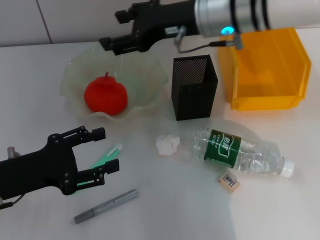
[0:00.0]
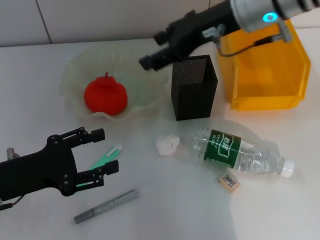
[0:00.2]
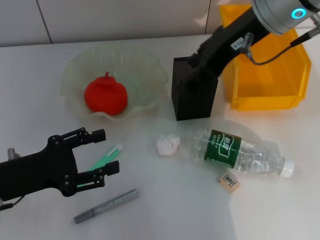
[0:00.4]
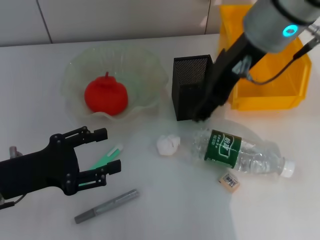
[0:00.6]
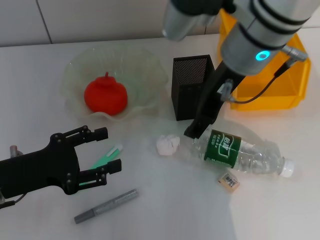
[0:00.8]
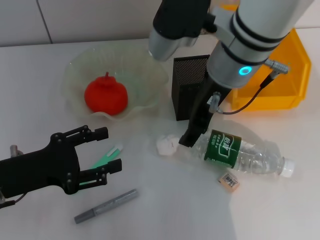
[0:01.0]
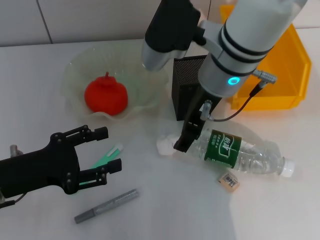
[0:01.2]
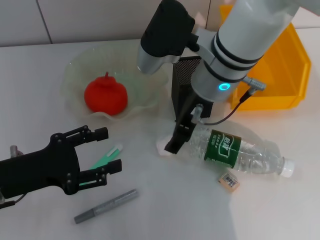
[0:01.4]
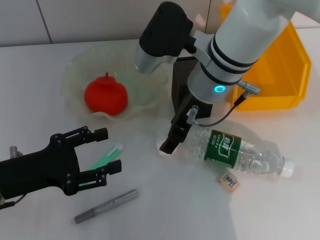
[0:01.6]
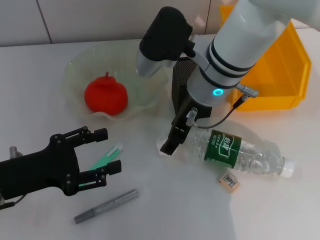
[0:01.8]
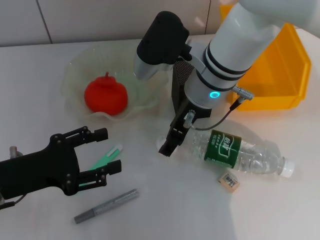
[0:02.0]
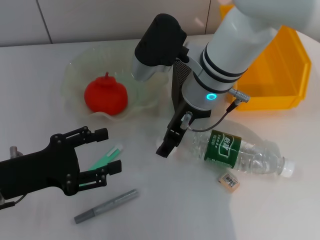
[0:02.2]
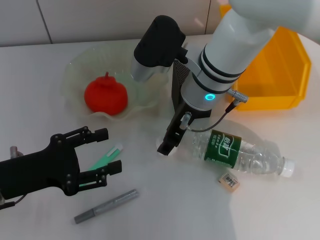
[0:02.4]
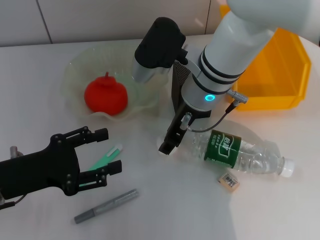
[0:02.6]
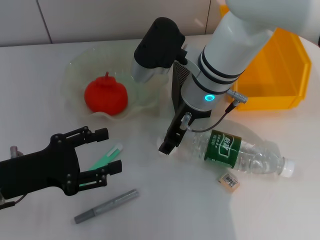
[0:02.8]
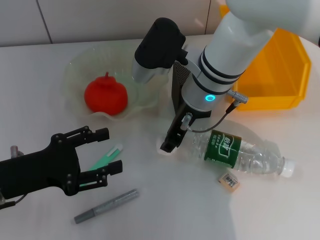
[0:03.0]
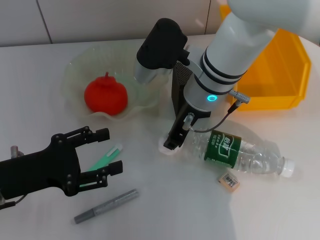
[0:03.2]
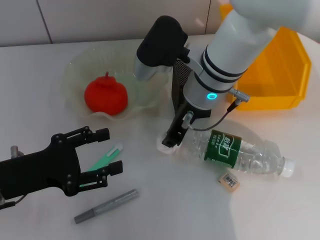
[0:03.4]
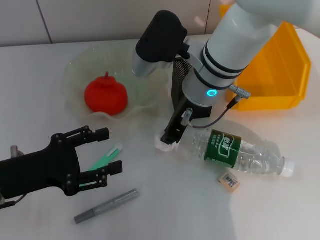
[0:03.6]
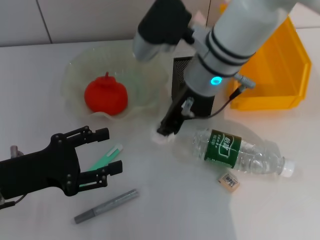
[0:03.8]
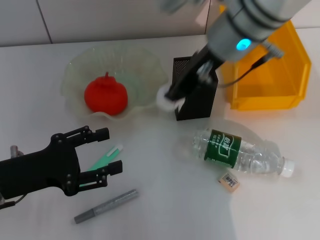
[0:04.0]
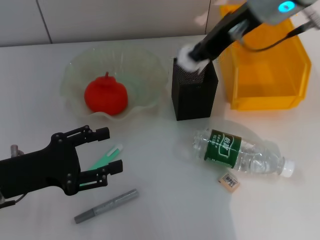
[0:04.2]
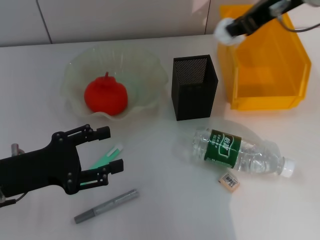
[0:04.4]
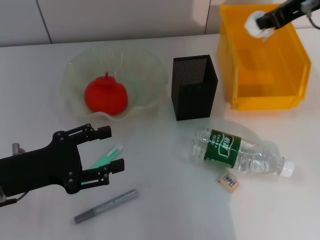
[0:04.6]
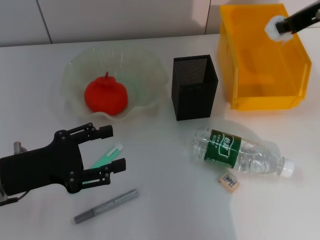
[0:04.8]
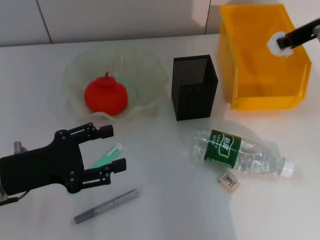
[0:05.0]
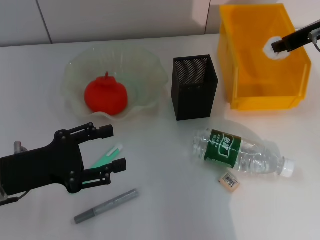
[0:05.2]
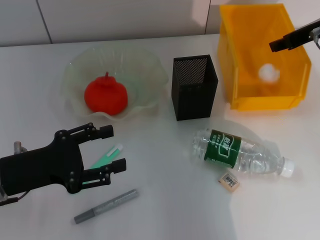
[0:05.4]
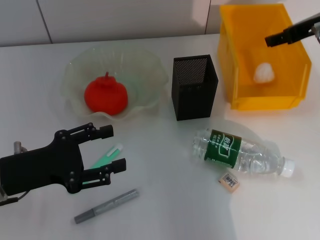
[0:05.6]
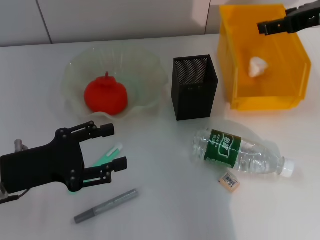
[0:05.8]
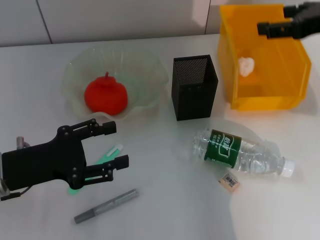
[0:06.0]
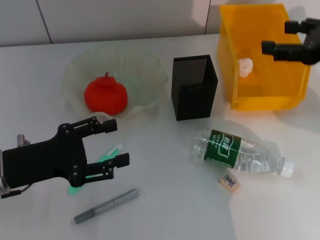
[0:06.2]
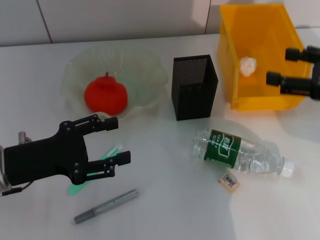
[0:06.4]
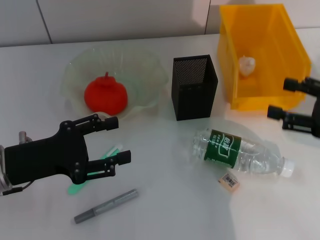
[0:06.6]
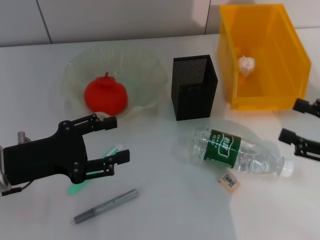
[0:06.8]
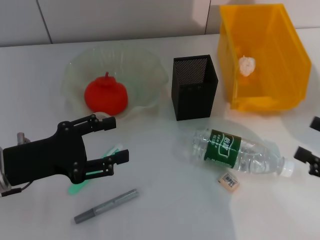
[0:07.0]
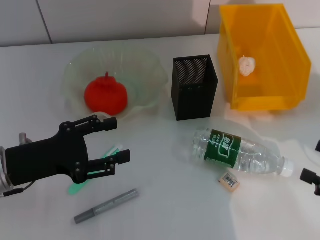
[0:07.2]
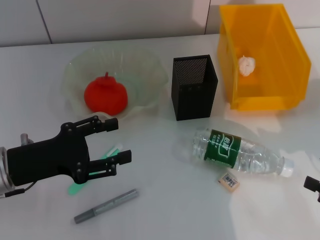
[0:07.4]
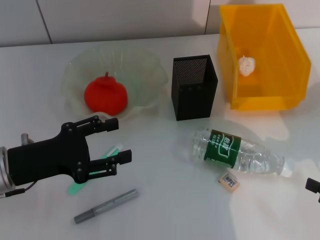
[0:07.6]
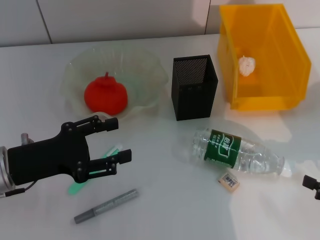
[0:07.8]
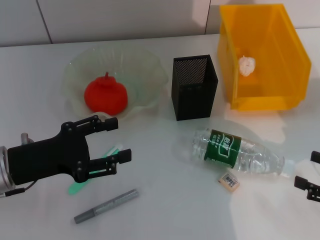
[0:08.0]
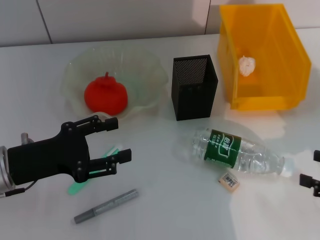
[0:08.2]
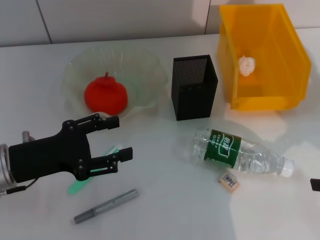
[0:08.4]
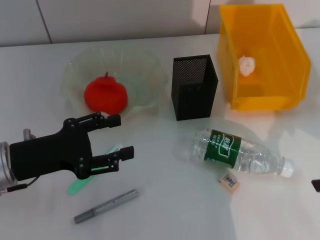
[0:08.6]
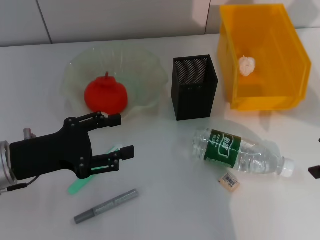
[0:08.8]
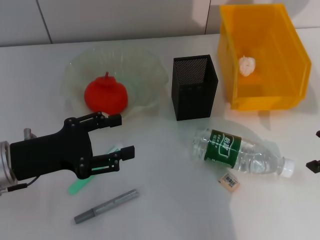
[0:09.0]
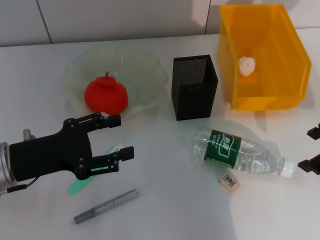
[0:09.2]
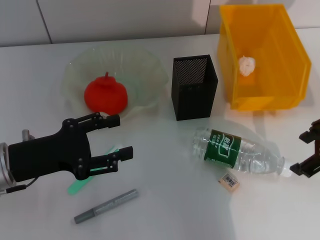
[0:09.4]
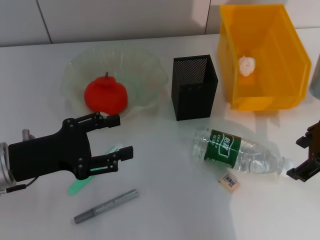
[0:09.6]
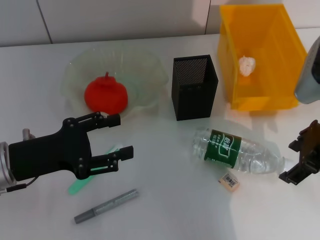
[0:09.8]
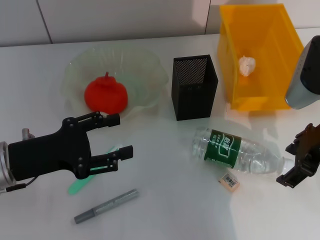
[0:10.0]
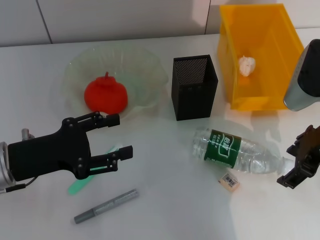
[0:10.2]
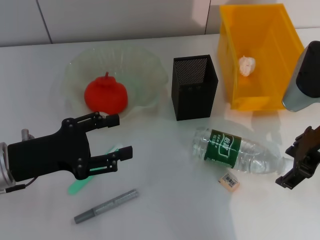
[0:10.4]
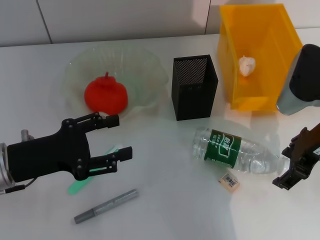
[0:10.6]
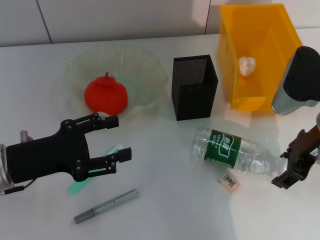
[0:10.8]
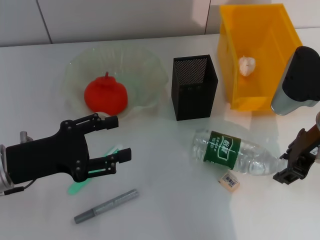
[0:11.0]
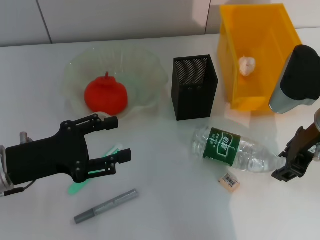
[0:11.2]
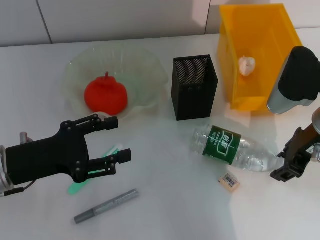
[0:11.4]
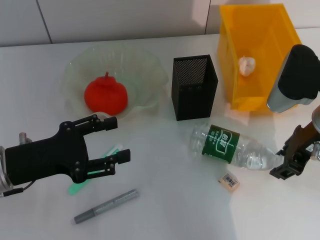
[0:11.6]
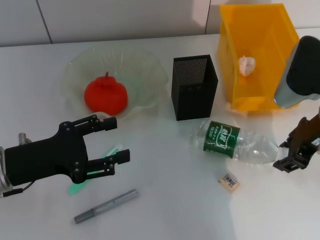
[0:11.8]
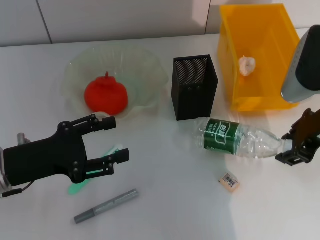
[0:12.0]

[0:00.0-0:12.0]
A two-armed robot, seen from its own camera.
Step, 0:00.0 to 0:03.2: Grab the paper ball with the right hand.
Step, 0:03.4 to 0:05.8: Place the paper ball into the trash can with the right hand.
Step, 0:06.2 to 0:11.0: Grab the water bottle with the right hand.
0:00.0 to 0:01.6: The right gripper ends up some 5 cm from where it was.
0:01.6 to 0:03.0: There are only small adjustments of the grippers.
0:03.0 to 0:04.4: The right gripper goes approximately 20 cm to the right and upward, and closes its fingers.
0:04.4 to 0:06.0: The right gripper is displaced to the right and backward by approximately 10 cm, and opens.
0:06.0 to 0:07.6: The right gripper moves backward, downward and to the right, about 30 cm.
0:07.6 to 0:09.0: The right gripper shifts approximately 20 cm upward, forward and to the left.
0:09.0 to 0:10.4: The right gripper shifts some 10 cm to the left and downward.
0:10.4 to 0:12.0: The right gripper closes.

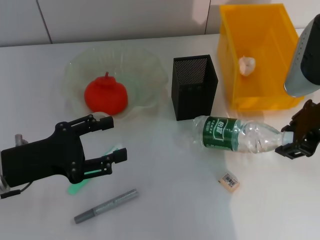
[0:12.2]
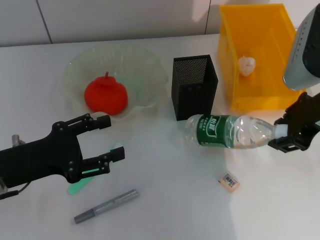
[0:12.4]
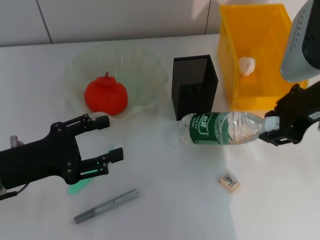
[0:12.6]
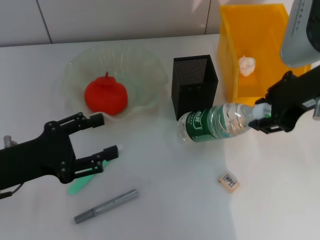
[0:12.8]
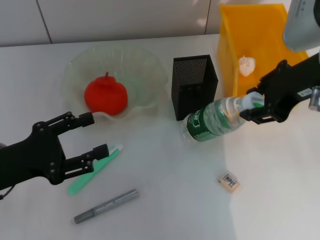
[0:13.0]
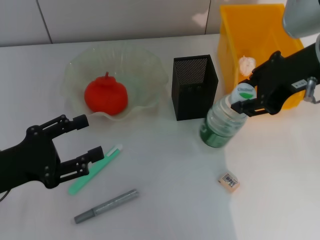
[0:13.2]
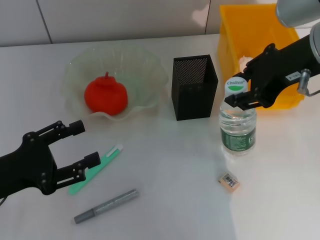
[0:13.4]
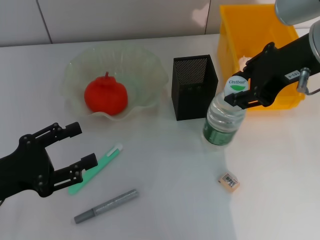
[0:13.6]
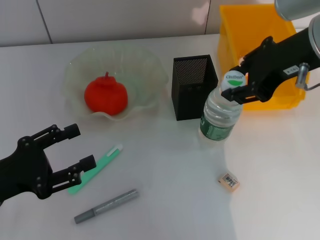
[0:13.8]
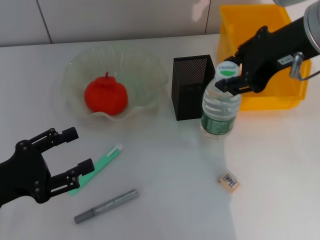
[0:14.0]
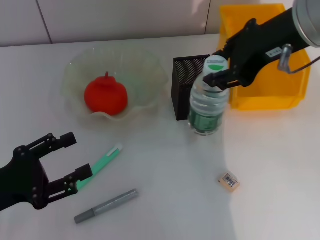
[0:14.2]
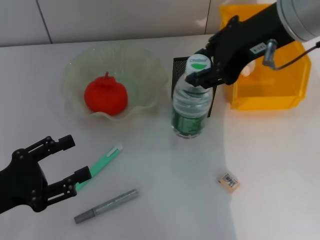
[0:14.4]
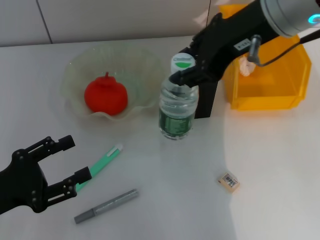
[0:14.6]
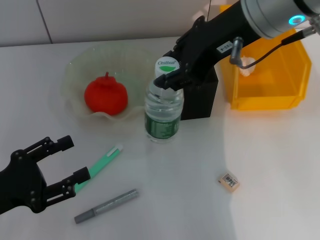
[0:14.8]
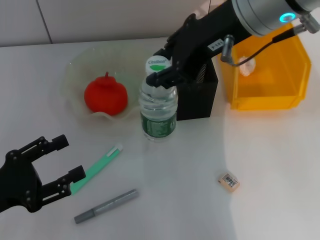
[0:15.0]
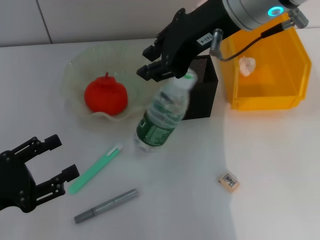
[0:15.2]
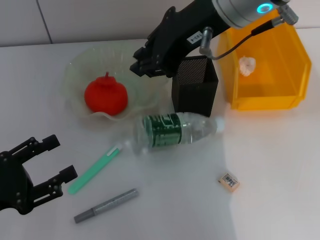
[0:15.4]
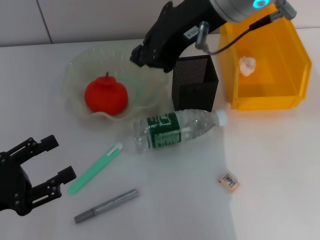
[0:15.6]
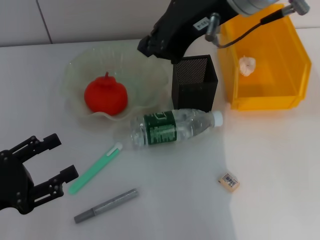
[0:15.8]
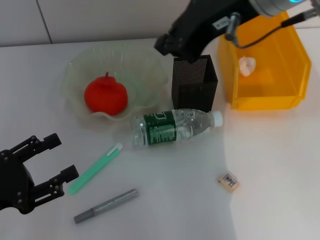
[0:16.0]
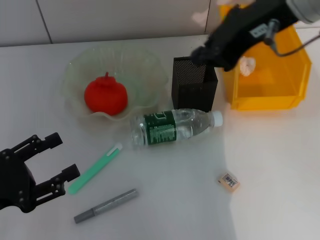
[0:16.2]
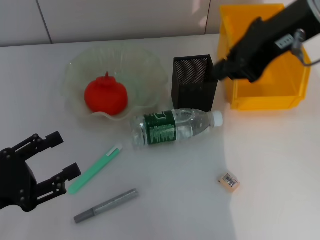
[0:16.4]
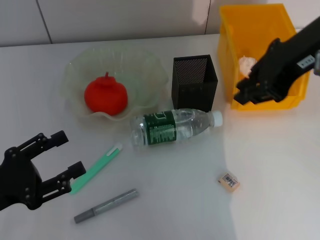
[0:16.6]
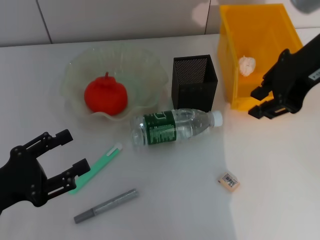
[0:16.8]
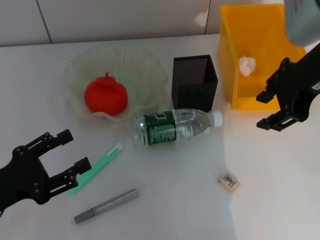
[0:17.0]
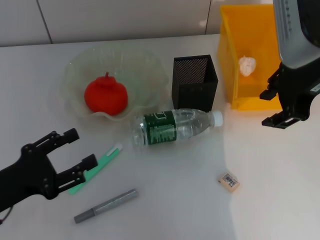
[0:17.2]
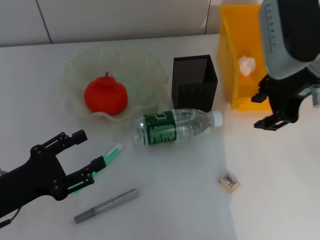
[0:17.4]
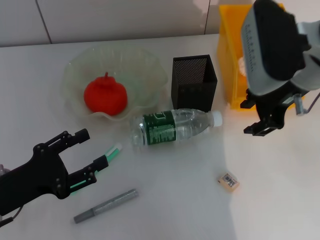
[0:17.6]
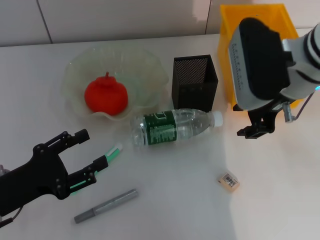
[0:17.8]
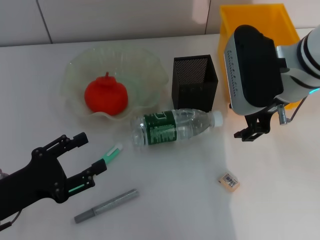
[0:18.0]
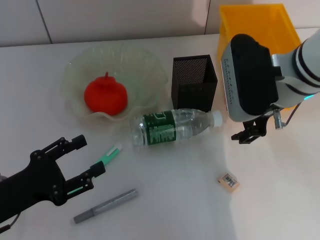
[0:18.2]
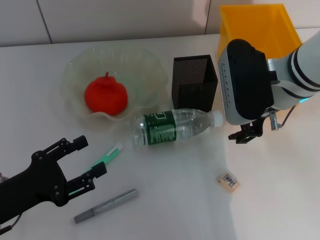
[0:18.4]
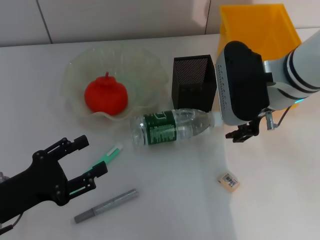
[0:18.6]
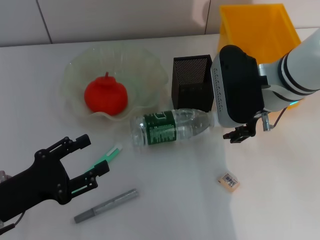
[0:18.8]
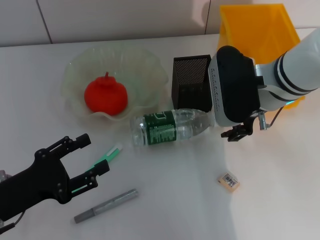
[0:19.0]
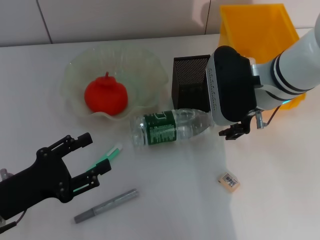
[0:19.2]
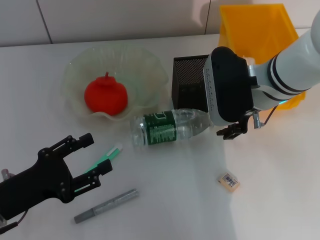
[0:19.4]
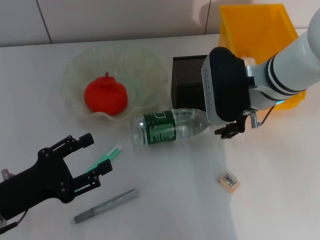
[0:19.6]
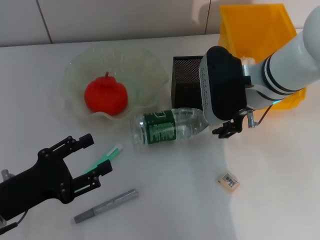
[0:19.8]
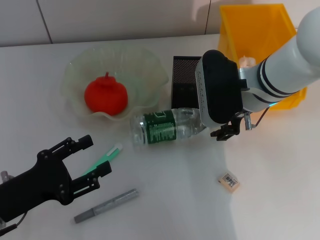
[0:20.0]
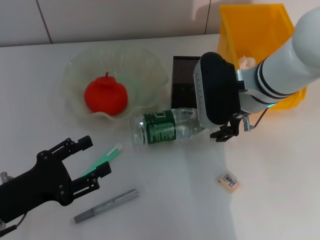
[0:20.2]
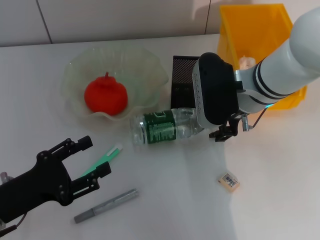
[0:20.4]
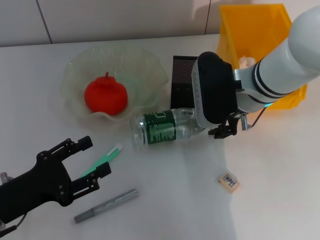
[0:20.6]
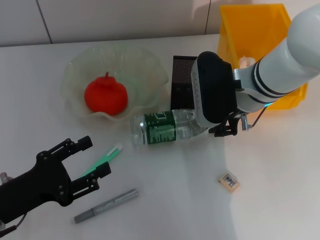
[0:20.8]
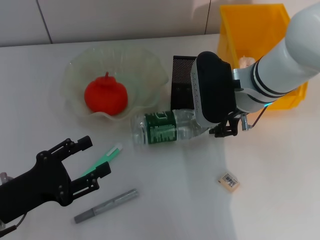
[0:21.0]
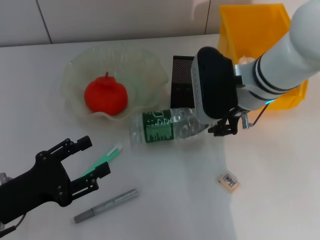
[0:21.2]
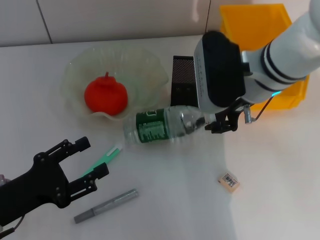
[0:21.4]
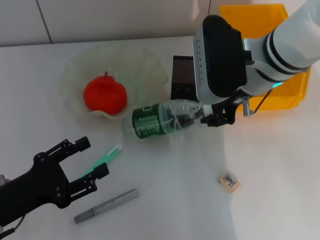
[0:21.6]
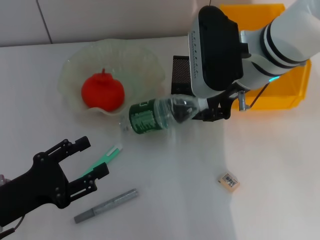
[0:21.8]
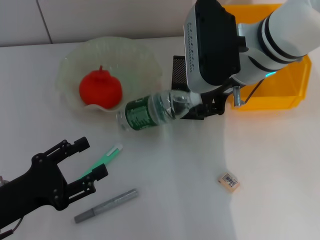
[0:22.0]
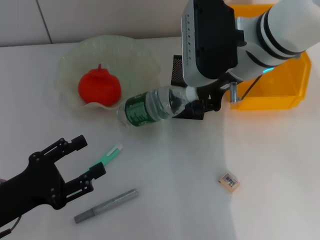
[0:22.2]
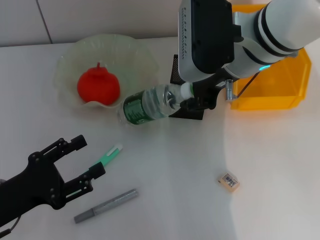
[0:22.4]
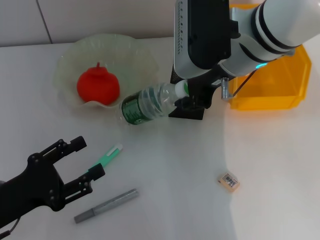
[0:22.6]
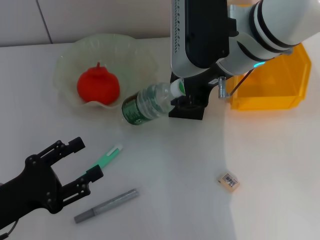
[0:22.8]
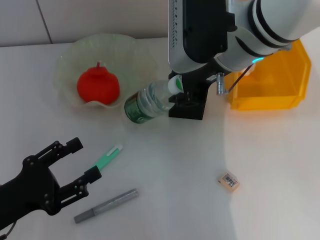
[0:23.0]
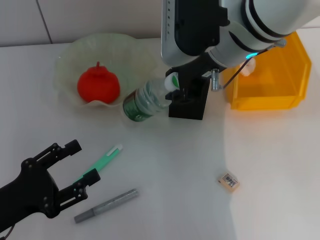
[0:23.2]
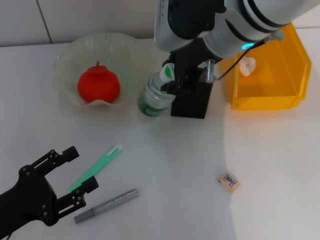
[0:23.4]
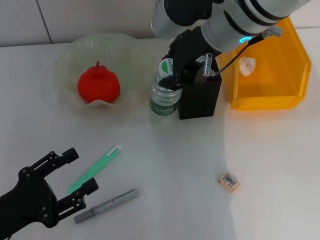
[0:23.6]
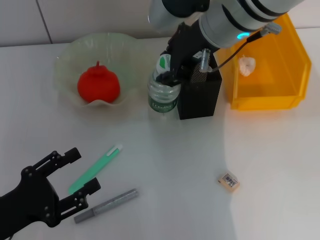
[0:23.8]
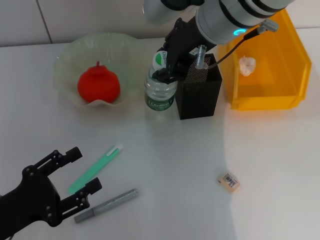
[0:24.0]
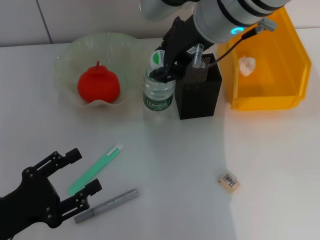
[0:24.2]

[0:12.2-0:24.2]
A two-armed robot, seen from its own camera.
0:12.2 to 0:13.8: The left gripper moves about 5 cm, while the right gripper shifts roughly 5 cm upward.
0:13.8 to 0:15.2: The right gripper moves to the left, some 10 cm.
0:15.2 to 0:16.6: The right gripper moves to the right, roughly 10 cm, and closes.
0:16.6 to 0:18.2: The right gripper goes about 10 cm downward, and opens up.
0:18.2 to 0:19.8: The grippers move only a little.
0:19.8 to 0:21.2: The two grippers keep their place.
0:21.2 to 0:22.6: The right gripper shifts some 10 cm upward.
0:22.6 to 0:24.2: The grippers stay close to where they were, moving slightly.
